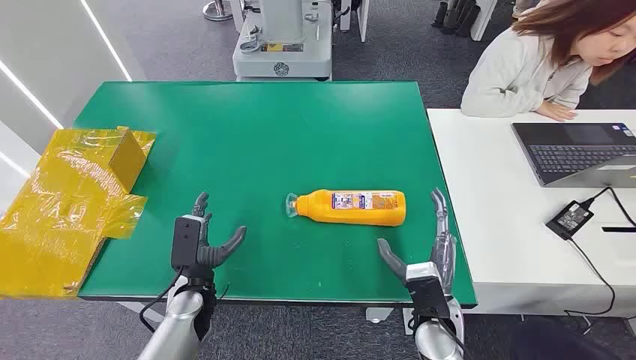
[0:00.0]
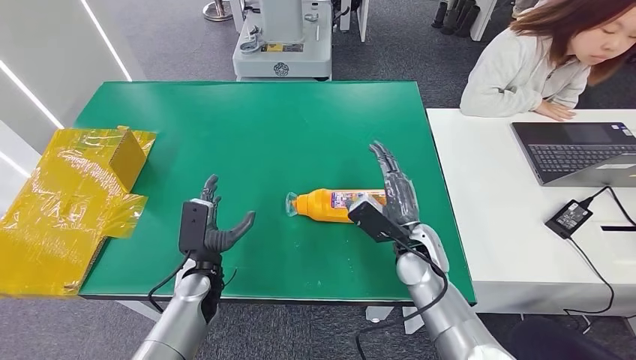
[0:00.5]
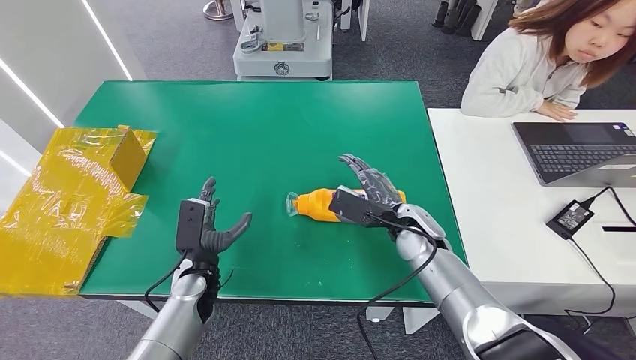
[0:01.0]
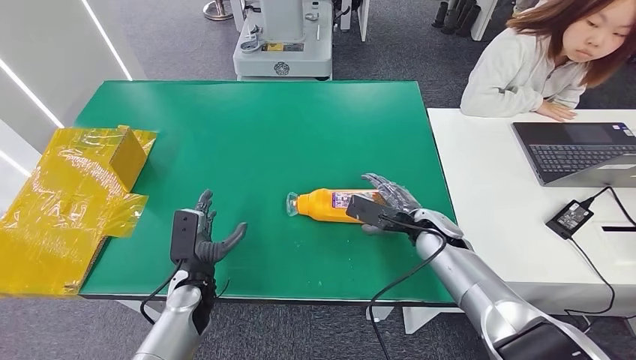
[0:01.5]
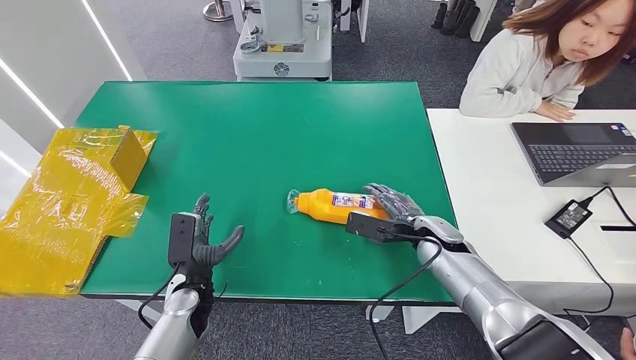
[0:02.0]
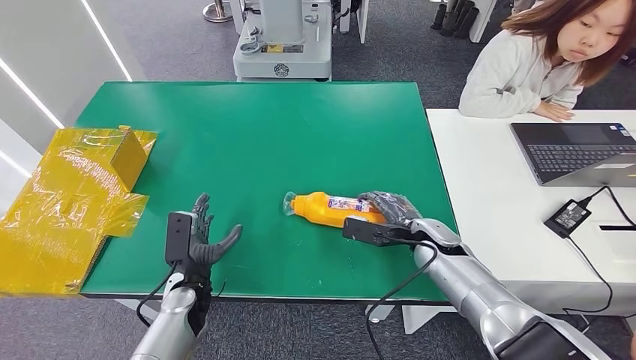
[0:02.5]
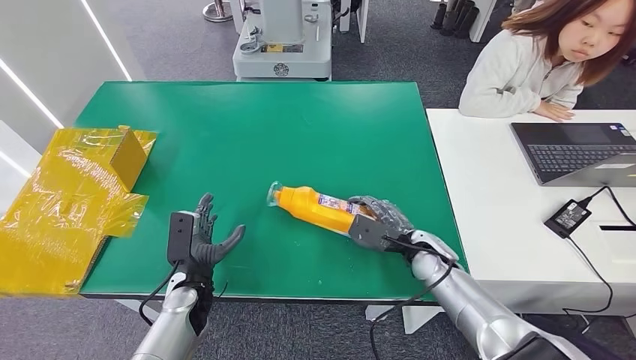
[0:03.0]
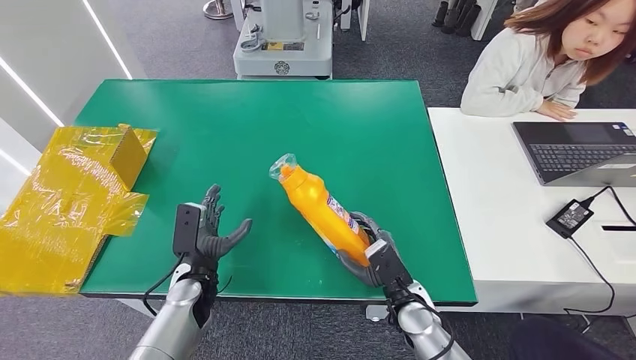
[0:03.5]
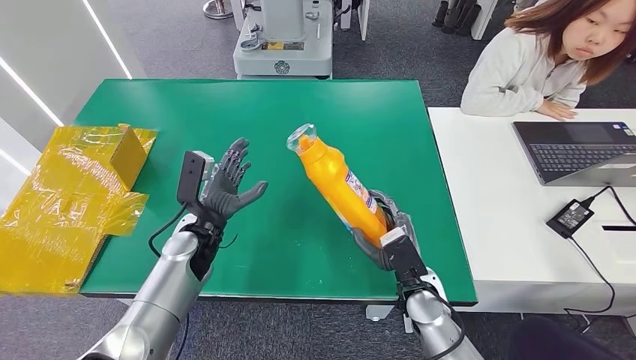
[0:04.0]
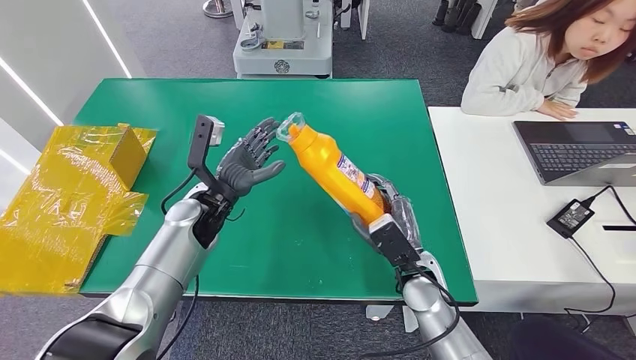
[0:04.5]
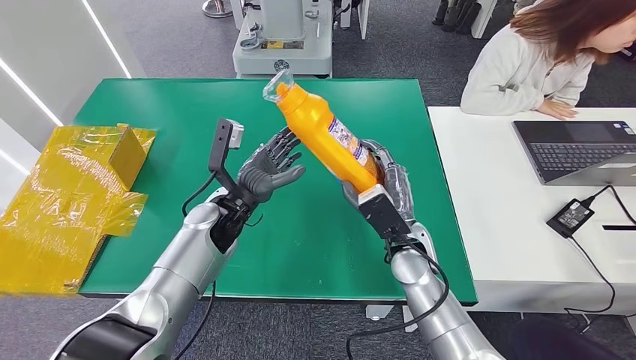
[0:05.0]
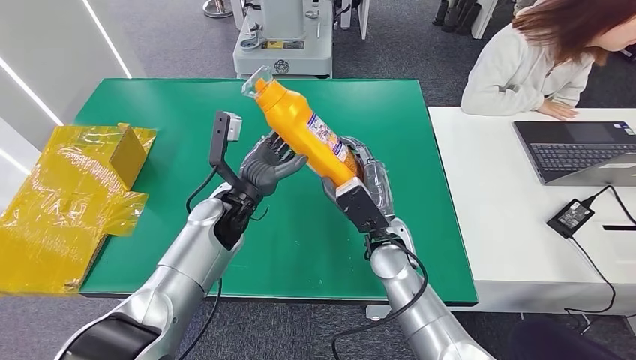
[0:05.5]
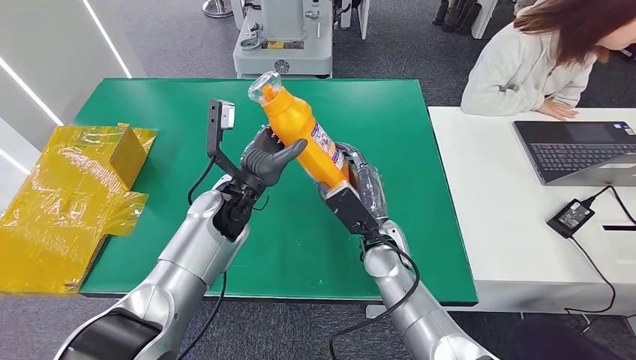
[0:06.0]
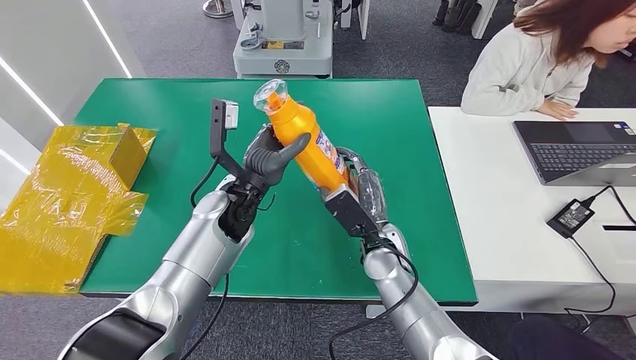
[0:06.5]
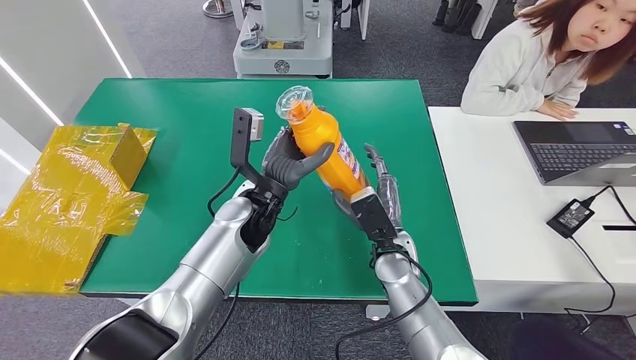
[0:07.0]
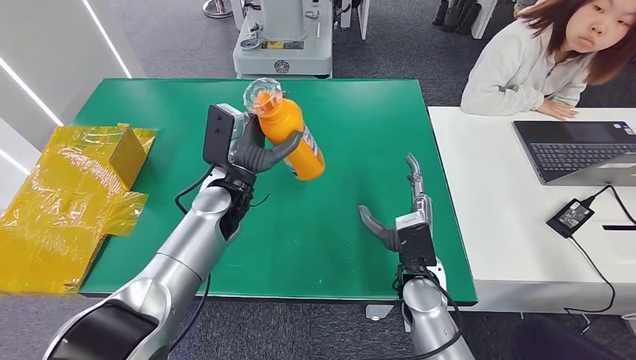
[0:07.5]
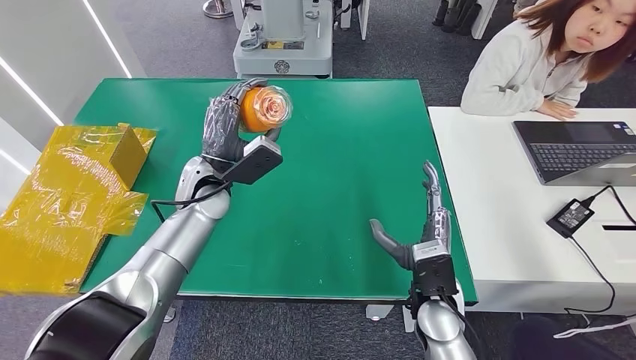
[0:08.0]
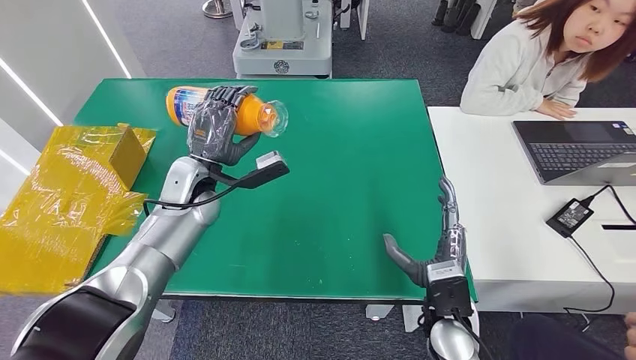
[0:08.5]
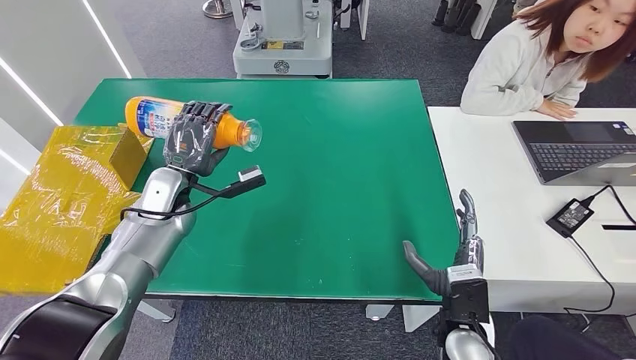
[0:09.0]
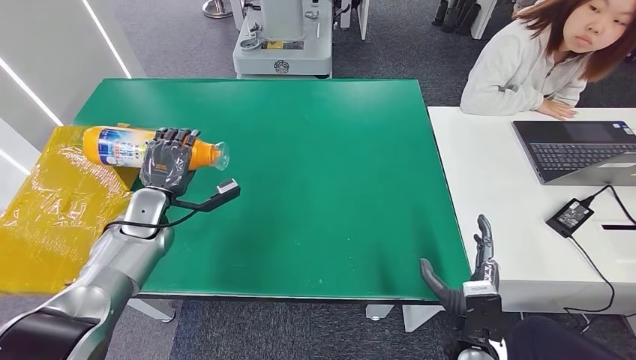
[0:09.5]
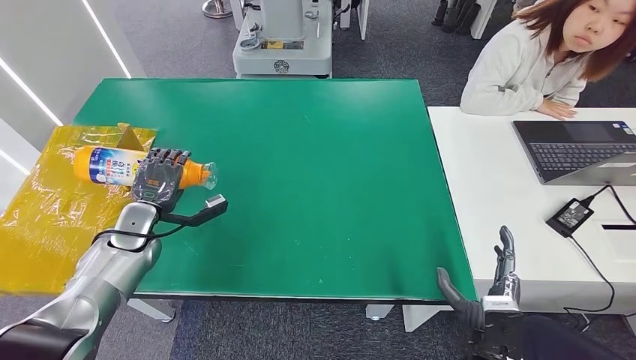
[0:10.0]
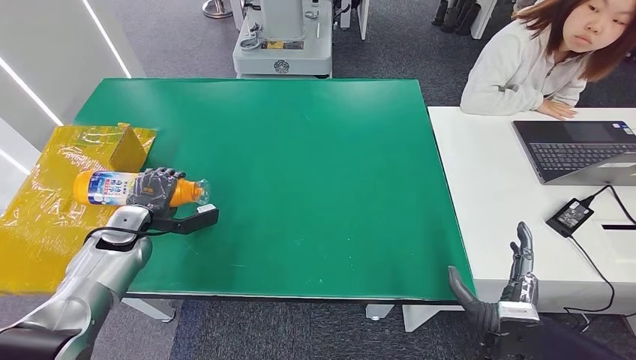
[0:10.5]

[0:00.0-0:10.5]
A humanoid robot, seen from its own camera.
Step, 0:00.0 to 0:03.5: Pick up the bottle from the table.
0:02.0 to 0:04.0: The right hand heads backward and to the left, covering some 10 cm; the left hand shifts roughly 10 cm upward and forward.
0:04.0 to 0:06.5: The right hand shifts approximately 10 cm to the left, forward and upward. The left hand moves upward and to the right, approximately 10 cm.
0:08.5 to 0:10.5: The right hand heads to the right and backward, covering approximately 10 cm. The left hand is displaced to the left and downward by some 20 cm.

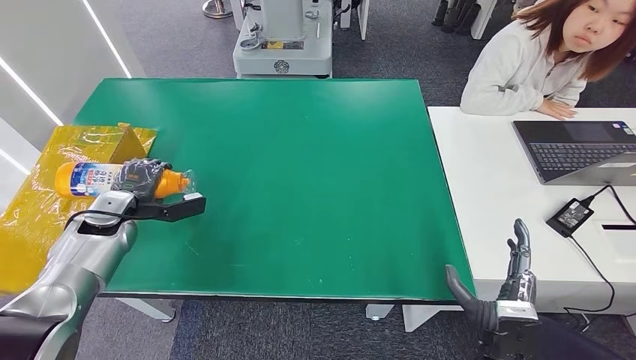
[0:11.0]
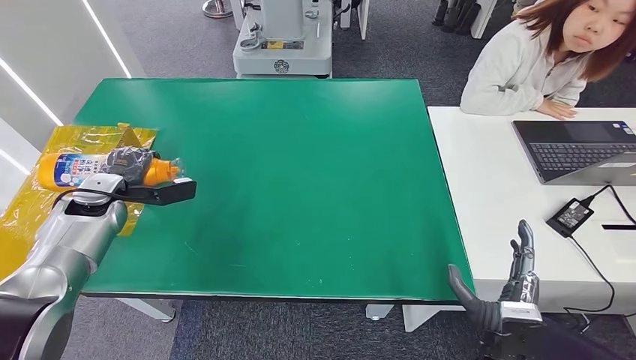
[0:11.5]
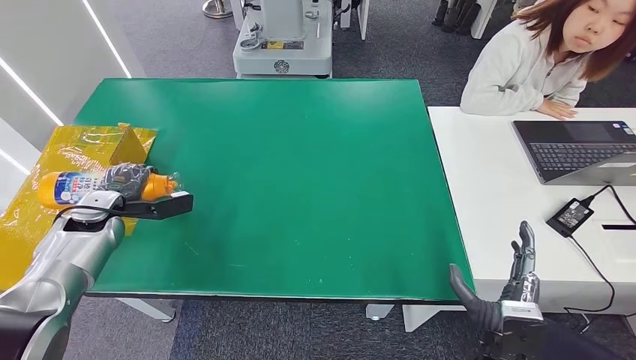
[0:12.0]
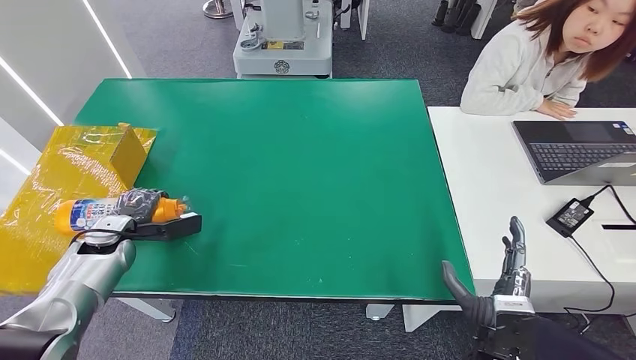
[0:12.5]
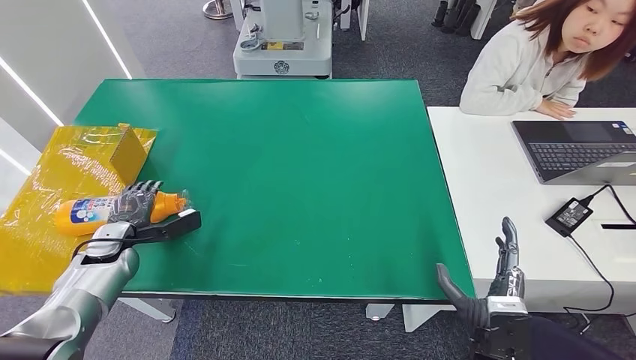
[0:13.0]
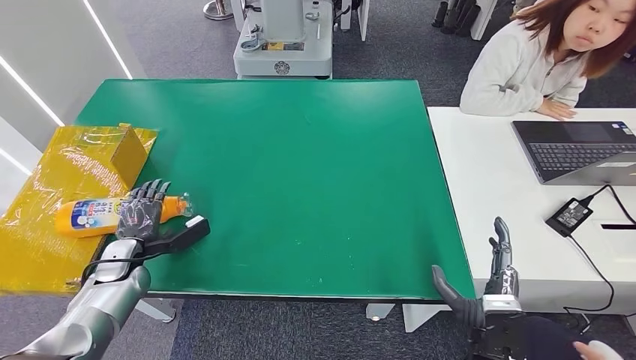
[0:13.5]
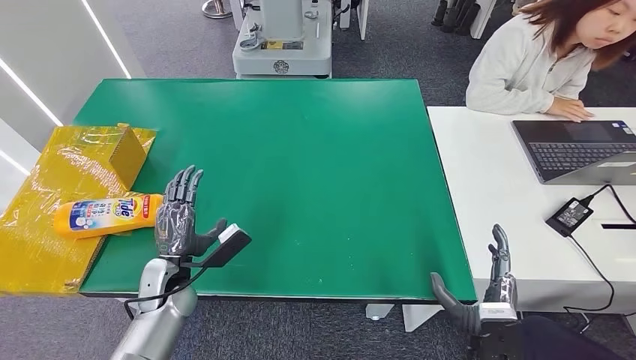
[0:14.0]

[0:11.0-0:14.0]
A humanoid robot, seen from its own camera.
Step, 0:11.0 to 0:14.0: Turn the bottle to the front side.
0:11.0 to 0:12.5: The left hand moves roughly 5 cm.
0:12.5 to 0:14.0: The left hand shifts roughly 15 cm to the right and backward.
